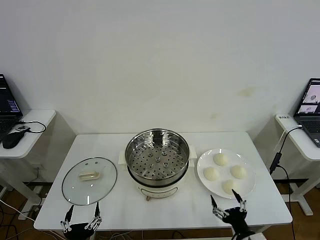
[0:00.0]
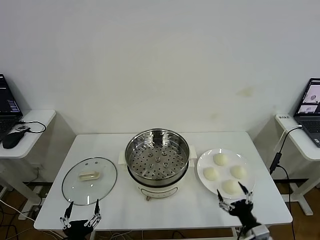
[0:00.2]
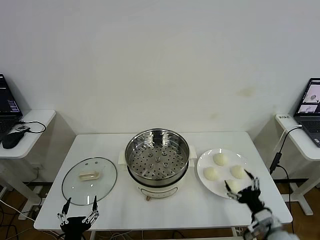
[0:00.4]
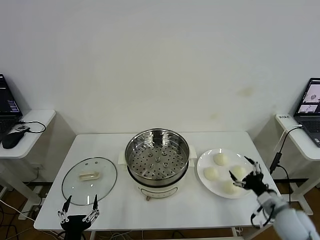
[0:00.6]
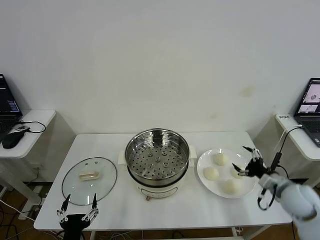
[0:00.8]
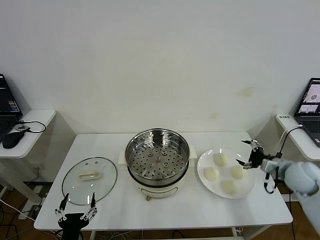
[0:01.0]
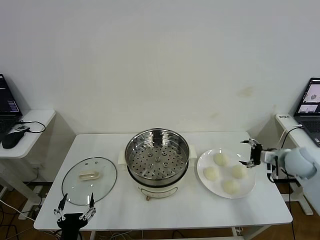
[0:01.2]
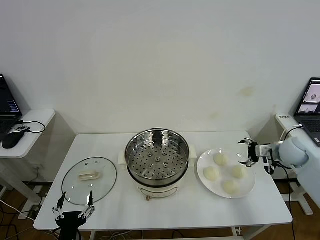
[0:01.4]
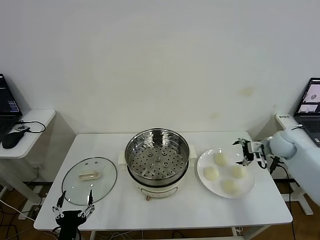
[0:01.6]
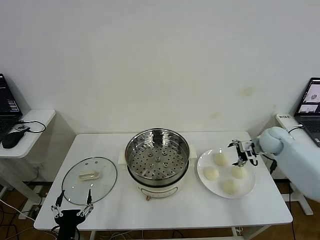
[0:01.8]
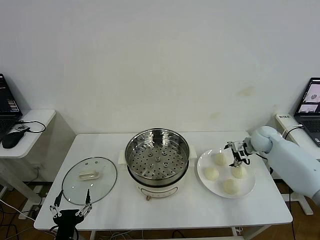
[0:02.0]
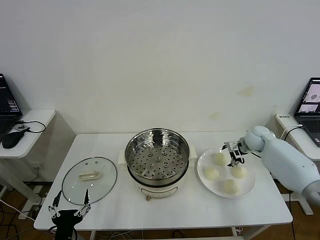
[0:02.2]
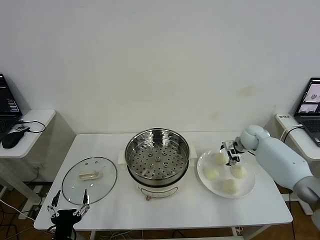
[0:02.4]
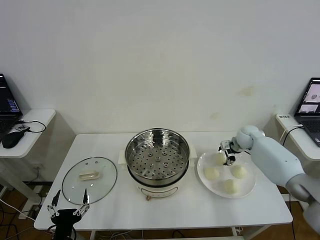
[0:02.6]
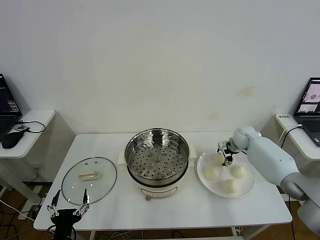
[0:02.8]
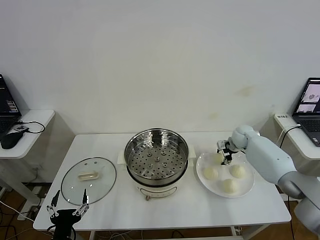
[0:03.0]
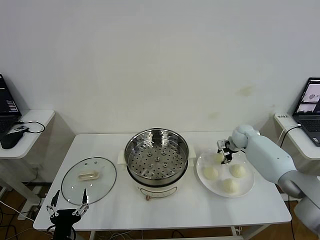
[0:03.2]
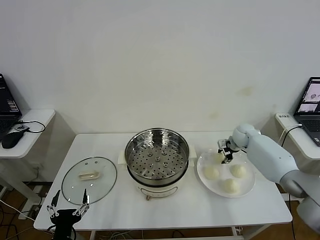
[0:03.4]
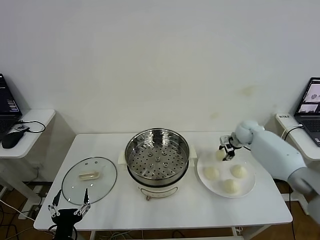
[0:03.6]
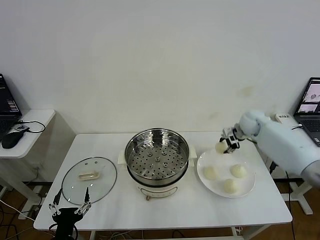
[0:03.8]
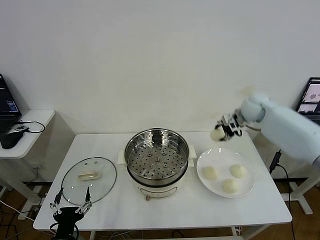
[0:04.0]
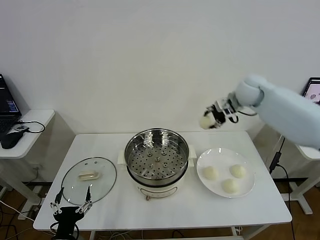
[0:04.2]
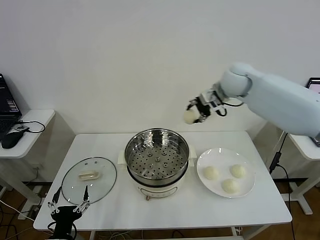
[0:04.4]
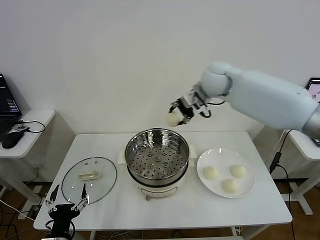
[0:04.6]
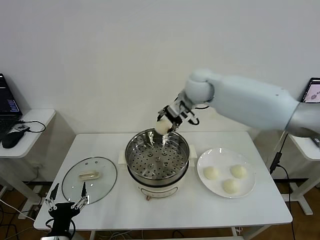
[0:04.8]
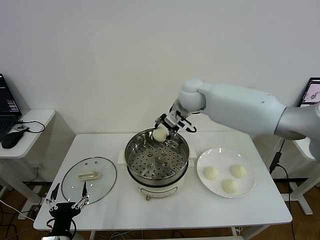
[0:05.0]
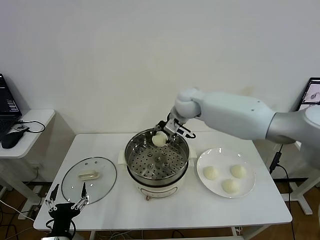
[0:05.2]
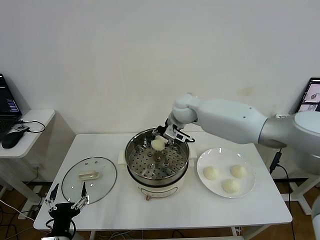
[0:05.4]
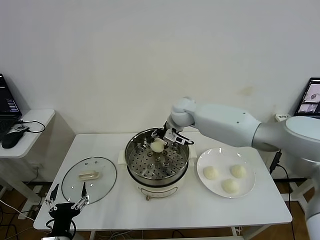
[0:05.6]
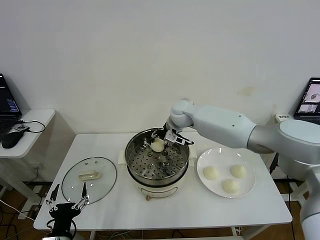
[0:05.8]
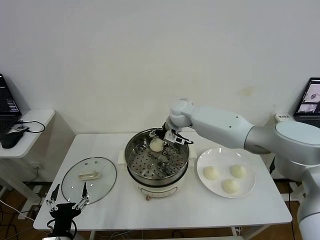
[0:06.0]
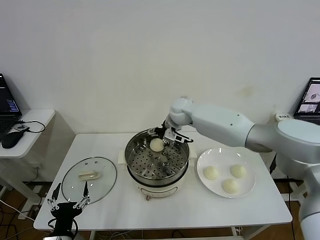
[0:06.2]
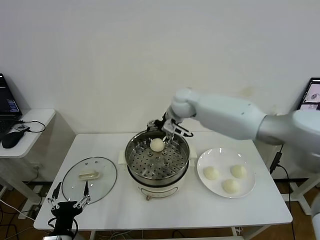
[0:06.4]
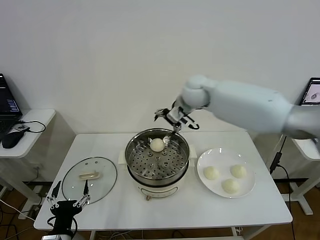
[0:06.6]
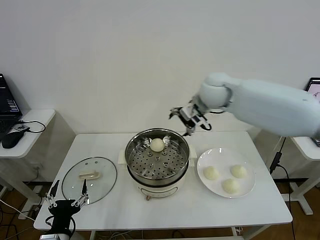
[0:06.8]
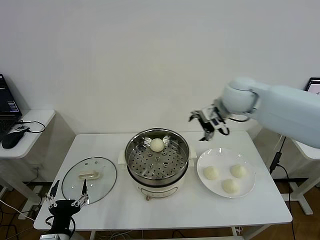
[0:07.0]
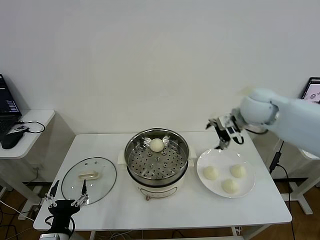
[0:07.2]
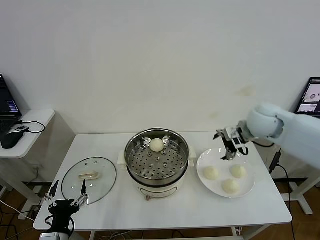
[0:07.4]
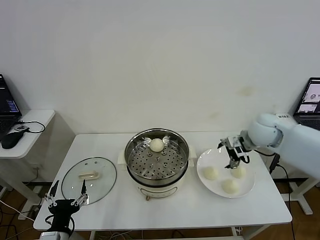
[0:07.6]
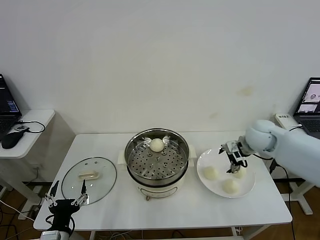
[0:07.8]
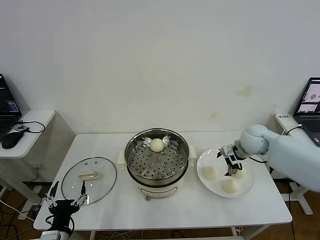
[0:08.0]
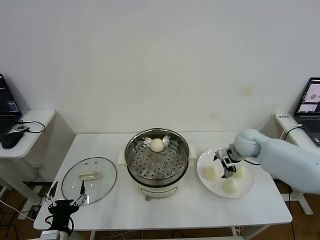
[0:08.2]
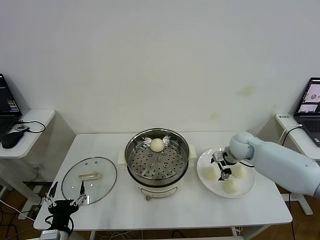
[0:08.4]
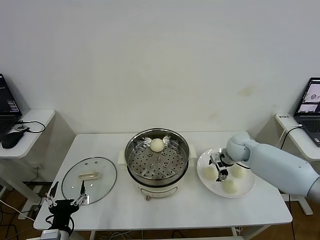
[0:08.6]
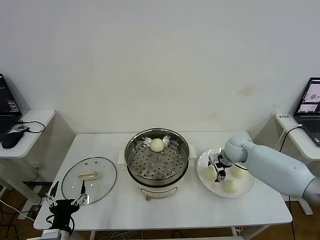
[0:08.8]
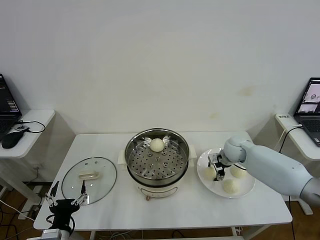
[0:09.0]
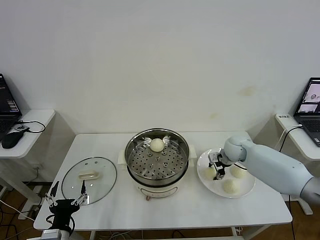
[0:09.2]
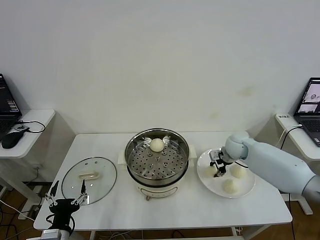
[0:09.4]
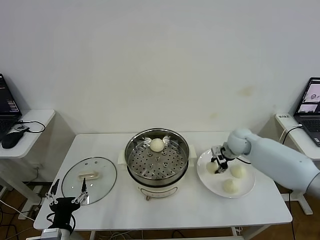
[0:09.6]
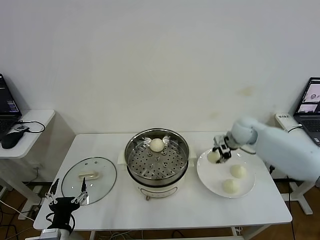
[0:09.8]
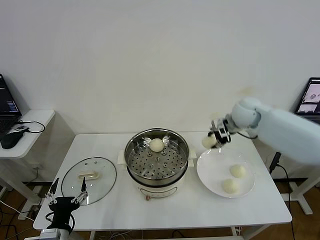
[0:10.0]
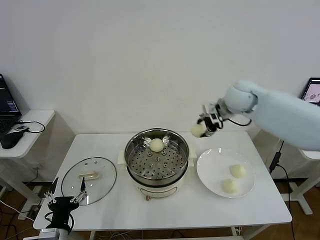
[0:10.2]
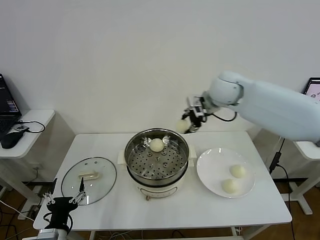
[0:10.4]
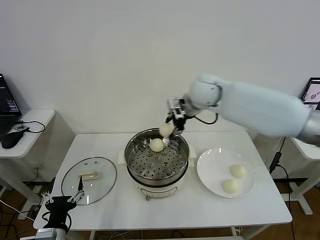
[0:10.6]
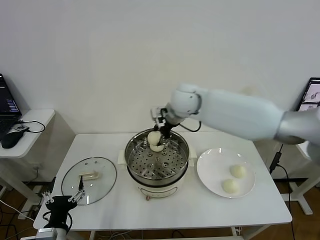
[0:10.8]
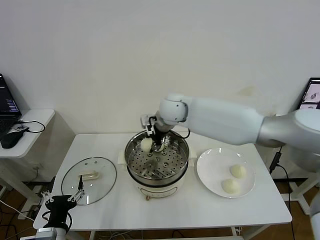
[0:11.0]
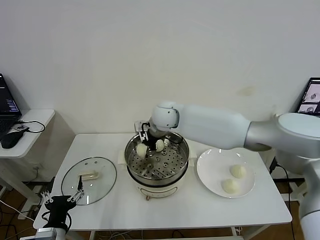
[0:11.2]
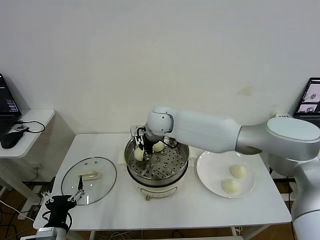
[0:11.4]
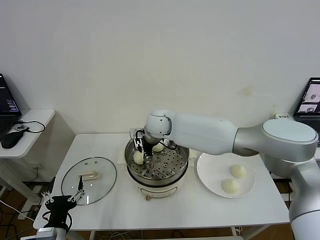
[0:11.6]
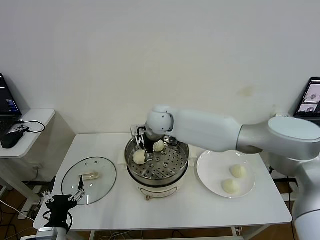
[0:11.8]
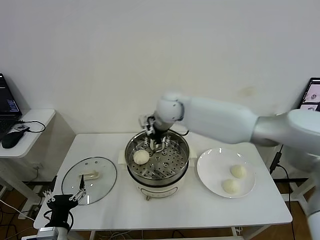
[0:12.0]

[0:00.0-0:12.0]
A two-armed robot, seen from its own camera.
Step, 0:00.0 to 0:03.0: Grasp the baozi in the plate with right gripper.
Step, 0:03.2 to 0:06.2: Place the baozi on the steamer with right gripper.
Step, 0:06.4 to 0:09.4: Grasp the baozi in the plate with right gripper.
Step, 0:09.6 to 0:11.8: Place the baozi on the steamer with right gripper.
0:01.6 to 0:03.0: The right gripper goes roughly 15 cm forward, to the left and downward, and closes up.
0:03.0 to 0:04.4: The right gripper moves upward and to the left, approximately 30 cm.
0:04.4 to 0:06.0: The right gripper shifts roughly 20 cm downward and to the left, and opens up.
0:06.0 to 0:07.6: The right gripper shifts about 25 cm to the right and backward.
0:07.6 to 0:09.0: The right gripper heads downward, covering about 15 cm, and closes up.
0:09.0 to 0:10.4: The right gripper goes some 30 cm upward and to the left.
0:10.4 to 0:12.0: The right gripper is displaced to the left and downward by about 10 cm, and opens up.

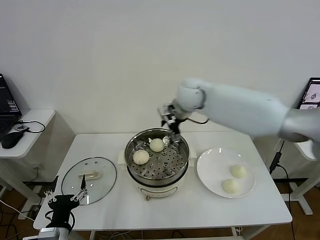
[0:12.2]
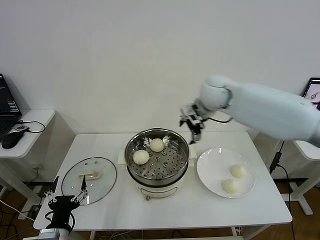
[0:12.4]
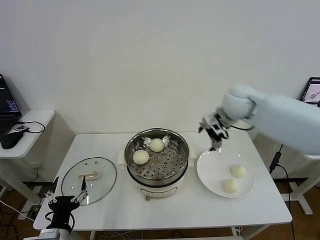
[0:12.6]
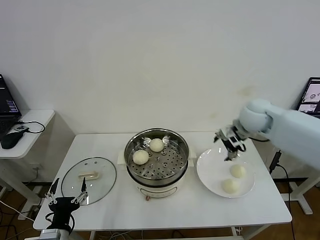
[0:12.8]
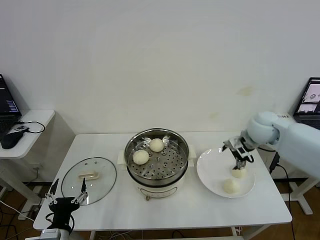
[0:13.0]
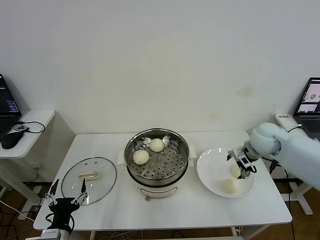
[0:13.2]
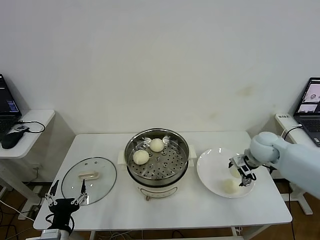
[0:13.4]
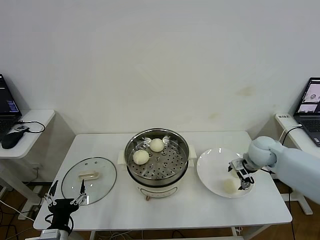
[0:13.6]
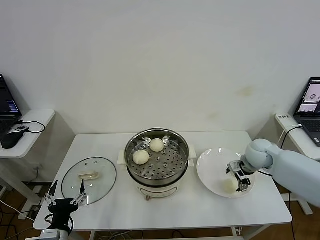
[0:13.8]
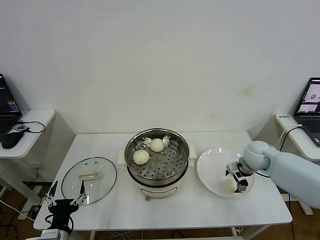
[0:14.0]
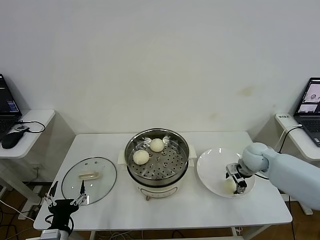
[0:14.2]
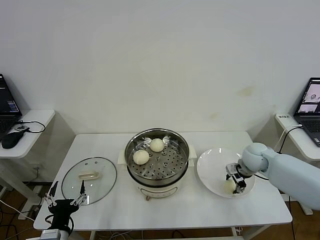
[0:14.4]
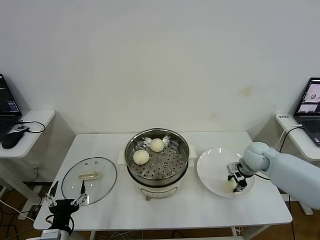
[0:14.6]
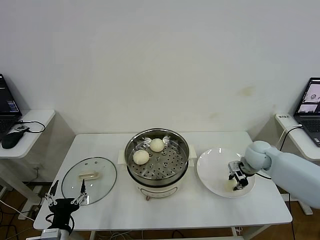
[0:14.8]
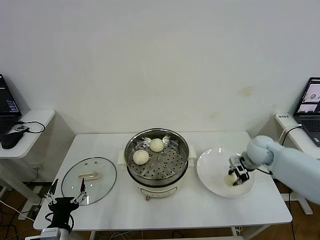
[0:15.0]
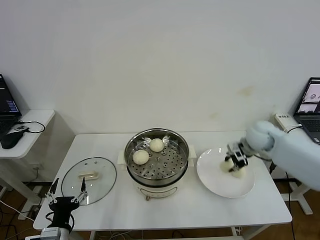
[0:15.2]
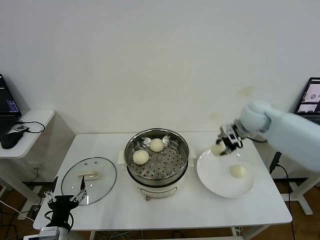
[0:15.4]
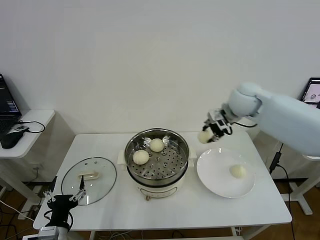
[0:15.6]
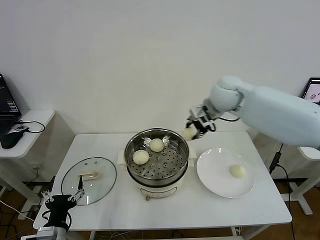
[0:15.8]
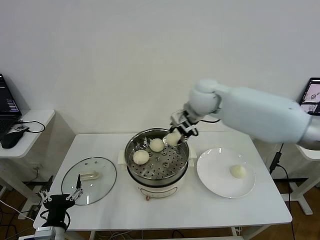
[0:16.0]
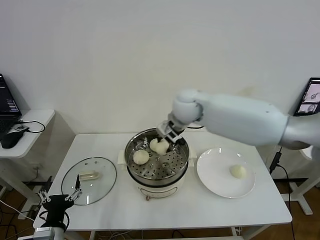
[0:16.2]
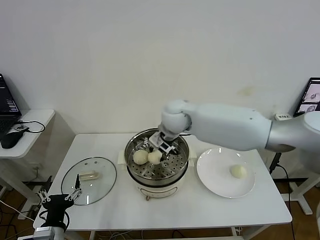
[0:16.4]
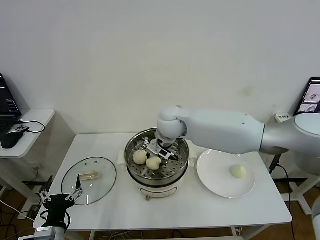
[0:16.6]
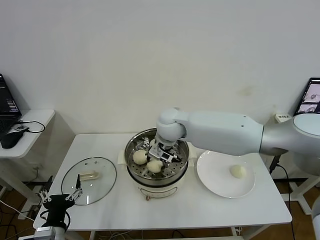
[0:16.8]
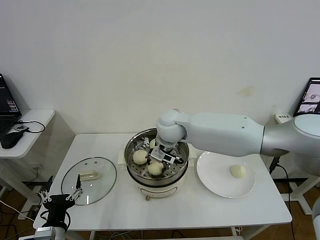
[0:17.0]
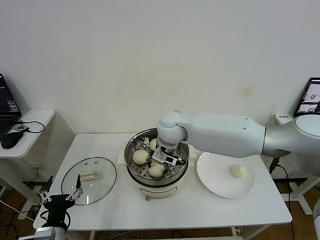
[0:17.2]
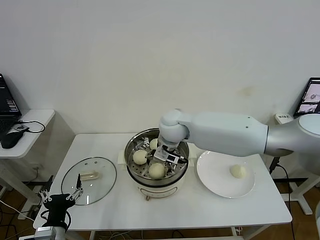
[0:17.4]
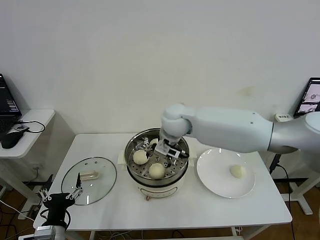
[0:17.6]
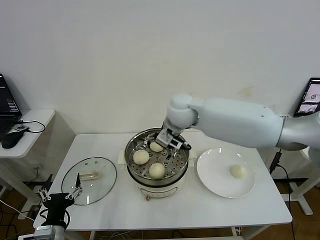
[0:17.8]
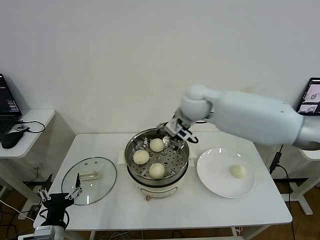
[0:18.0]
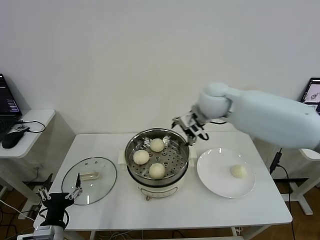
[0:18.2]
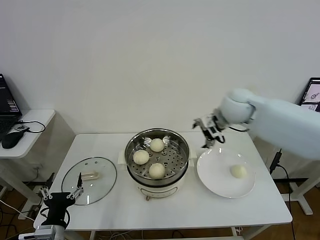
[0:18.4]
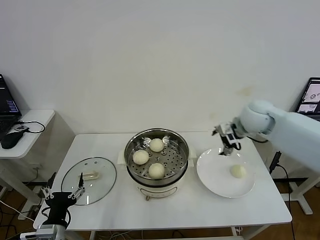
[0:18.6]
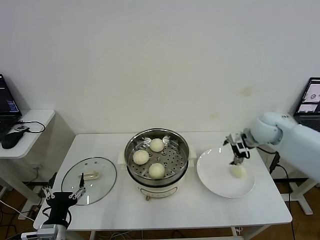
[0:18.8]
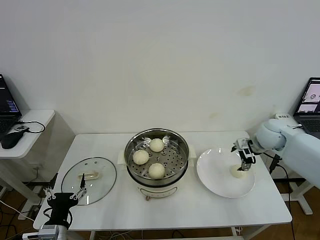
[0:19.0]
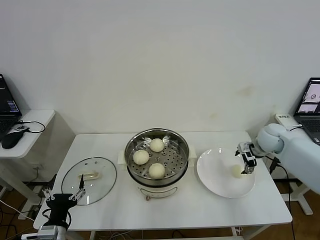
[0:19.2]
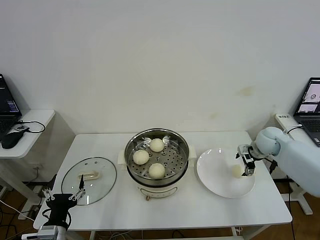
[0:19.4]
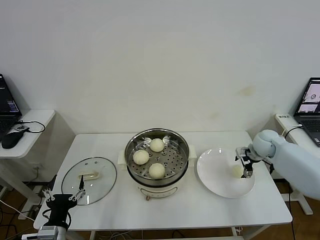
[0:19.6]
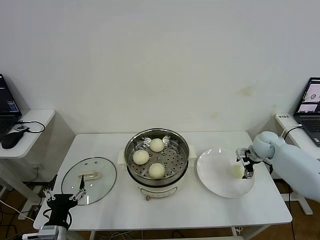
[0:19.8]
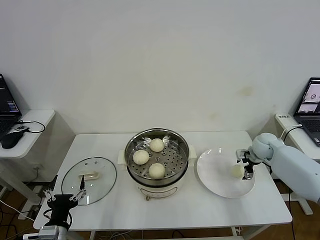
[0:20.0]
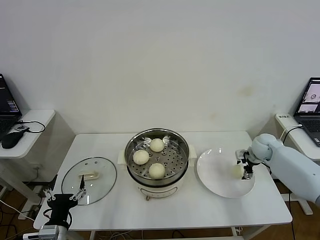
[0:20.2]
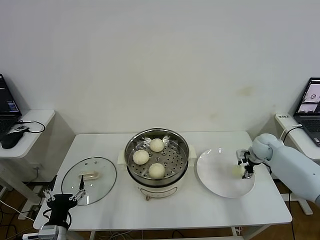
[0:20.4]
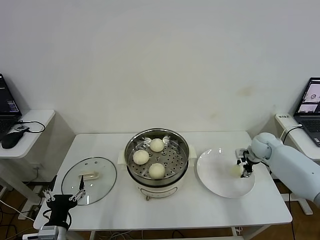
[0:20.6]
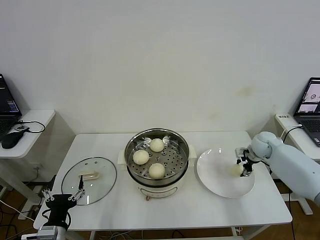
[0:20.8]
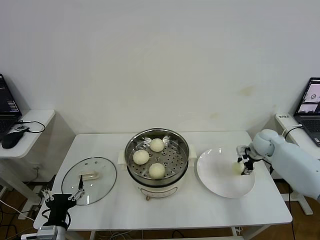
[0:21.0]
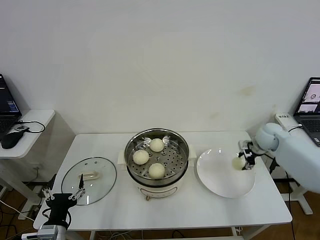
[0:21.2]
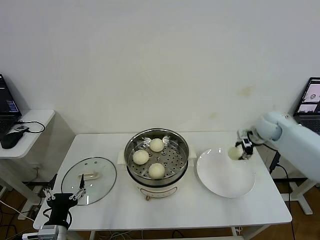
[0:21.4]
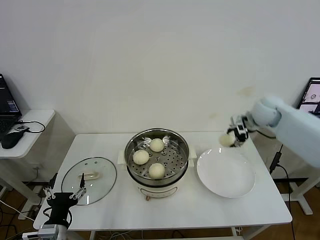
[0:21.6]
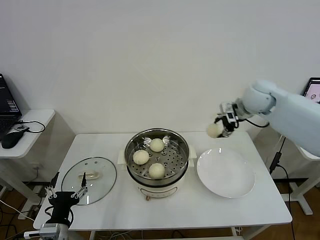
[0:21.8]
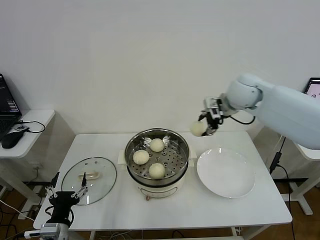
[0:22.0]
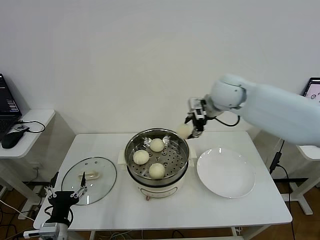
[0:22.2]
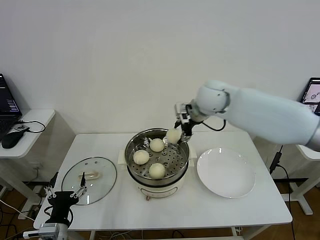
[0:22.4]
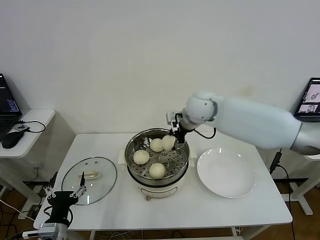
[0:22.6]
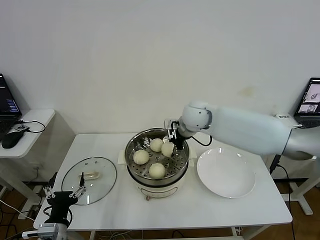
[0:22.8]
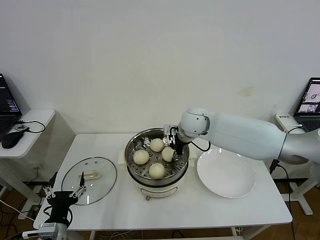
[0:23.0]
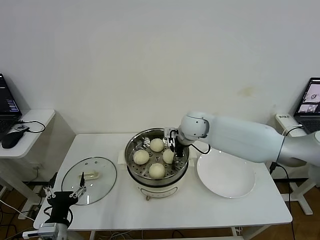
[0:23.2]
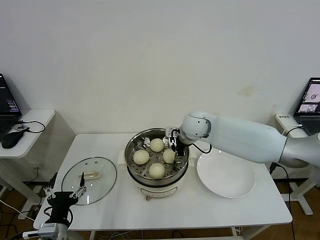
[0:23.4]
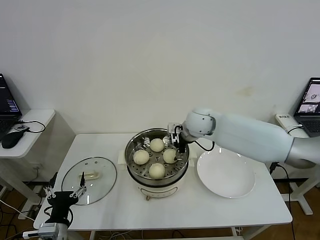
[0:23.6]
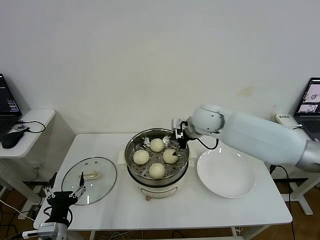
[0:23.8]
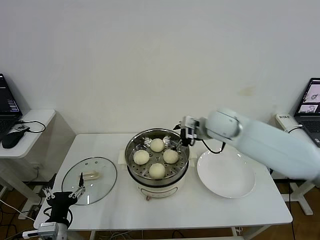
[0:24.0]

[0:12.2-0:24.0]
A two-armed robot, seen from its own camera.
Step, 0:12.2 to 0:14.6: Grasp the baozi in the plate with right gripper.
Step, 0:14.8 to 0:17.4: Place the baozi on the steamer with right gripper.
Step, 0:17.6 to 0:20.8: Grasp the baozi in the plate with right gripper.
Step, 0:21.0 to 0:23.6: Place the baozi on the steamer with right gripper.
0:12.2 to 0:13.6: The right gripper moves to the right and downward, about 30 cm.
0:13.6 to 0:15.2: The right gripper is displaced upward by roughly 5 cm, and closes.
0:15.2 to 0:16.6: The right gripper goes roughly 30 cm to the left.
0:16.6 to 0:18.2: The right gripper goes approximately 15 cm to the right and upward, and opens its fingers.
0:18.2 to 0:19.6: The right gripper shifts some 30 cm to the right and downward.
0:21.0 to 0:22.6: The right gripper heads to the left and upward, covering approximately 35 cm.
0:22.6 to 0:24.0: The right gripper goes about 5 cm to the right, and opens.
